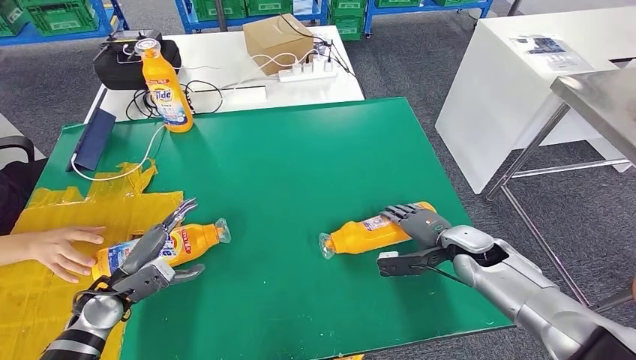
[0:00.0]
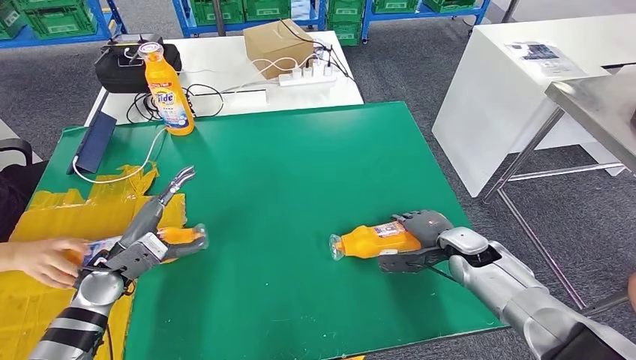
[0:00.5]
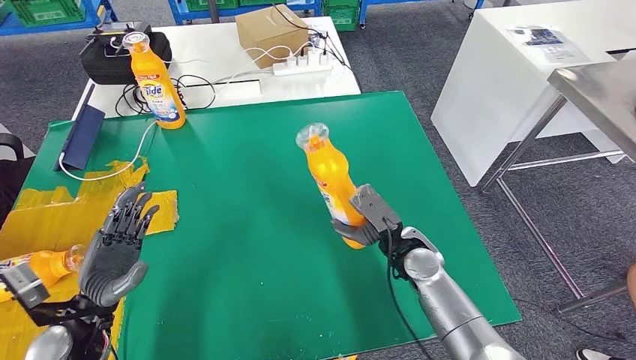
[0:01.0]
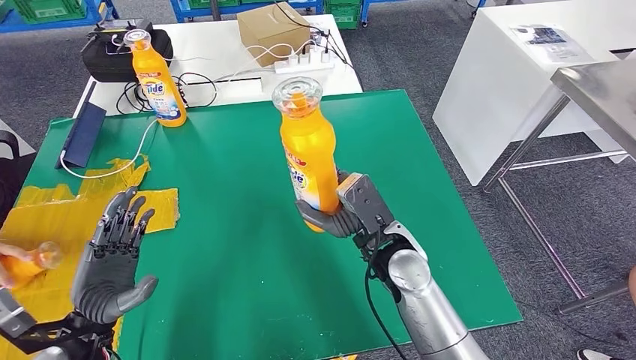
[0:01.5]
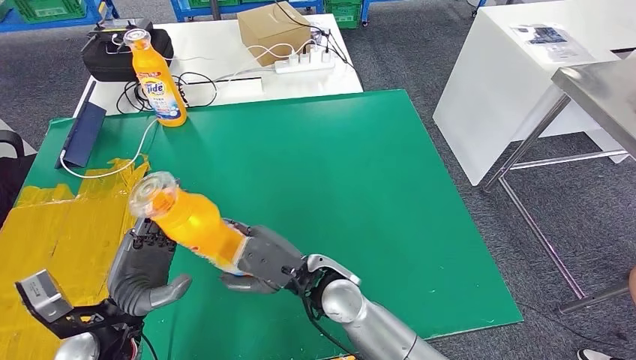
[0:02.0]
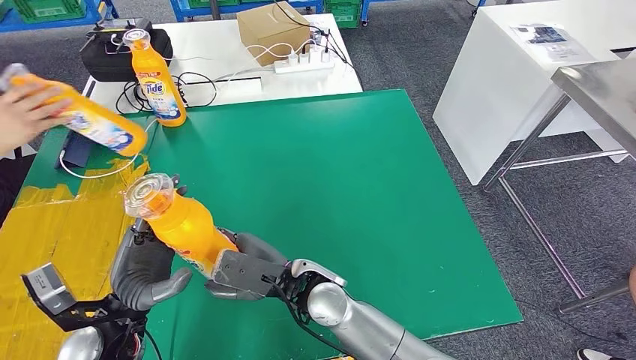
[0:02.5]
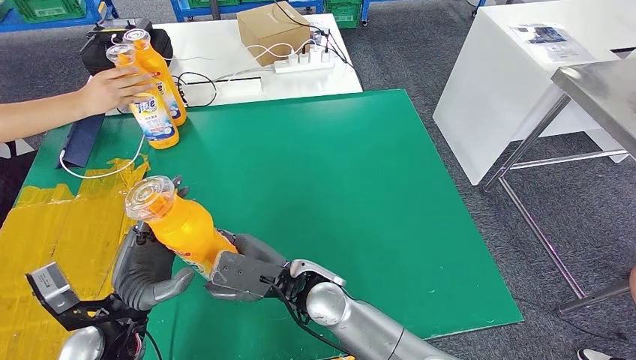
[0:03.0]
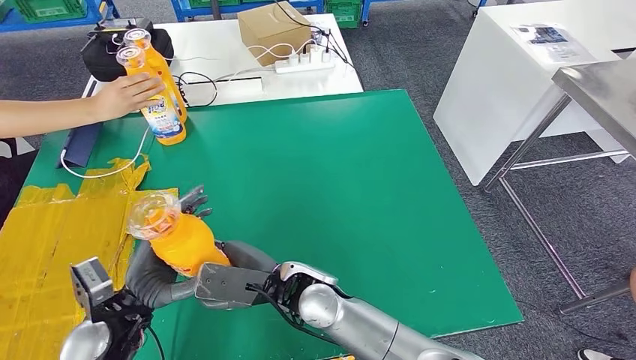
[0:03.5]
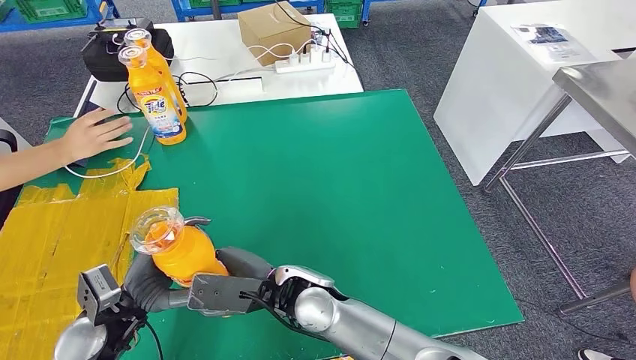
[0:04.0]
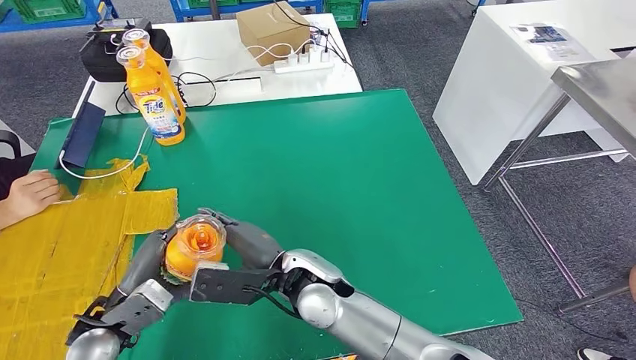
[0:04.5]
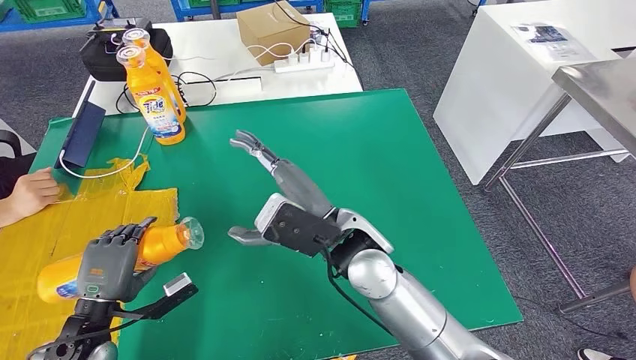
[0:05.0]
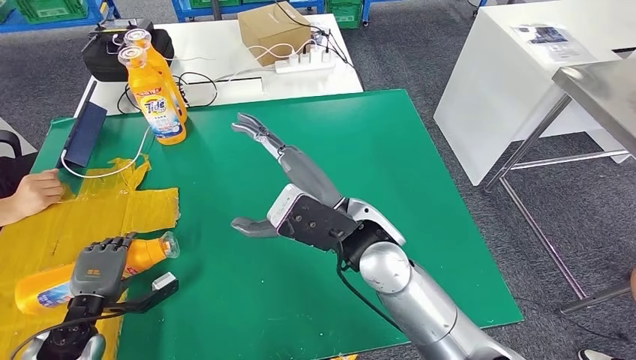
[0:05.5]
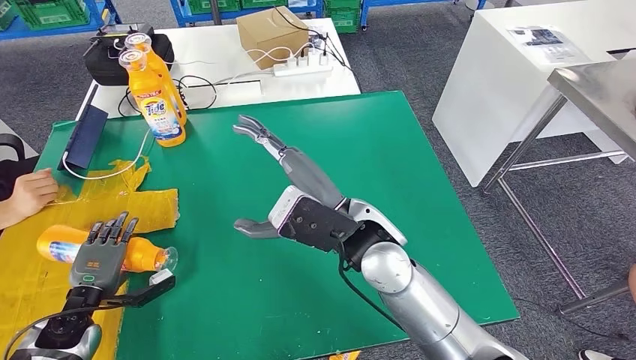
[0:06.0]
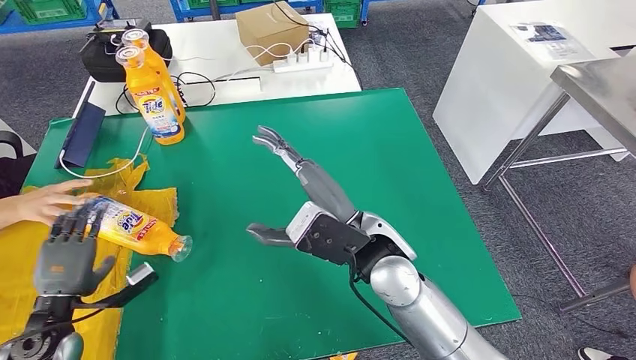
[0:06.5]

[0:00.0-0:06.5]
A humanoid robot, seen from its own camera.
Step, 0:00.0 to 0:02.5: Pick up the fast-moving consumer goods bottle from the table.
Step, 0:03.0 to 0:06.0: Flip the fast-moving consumer goods bottle to the front side.
